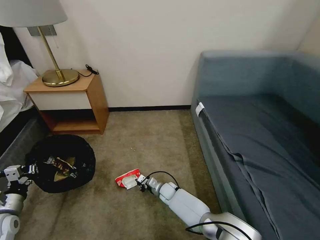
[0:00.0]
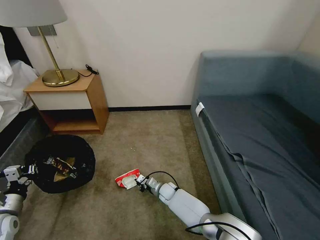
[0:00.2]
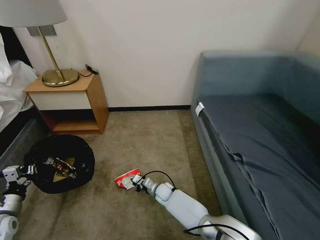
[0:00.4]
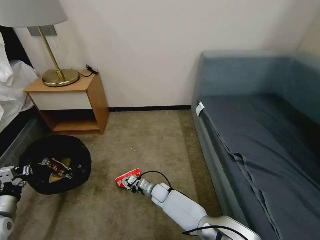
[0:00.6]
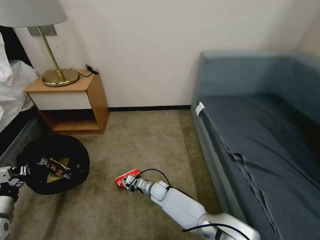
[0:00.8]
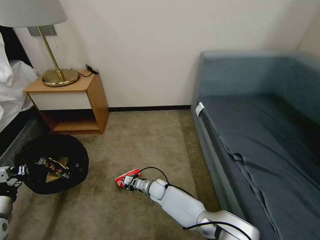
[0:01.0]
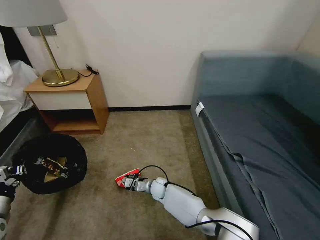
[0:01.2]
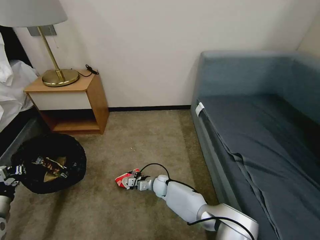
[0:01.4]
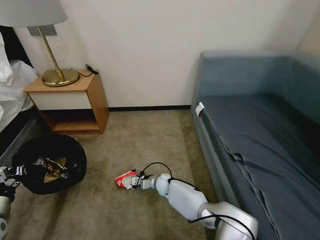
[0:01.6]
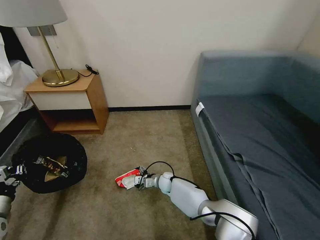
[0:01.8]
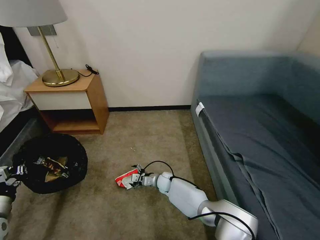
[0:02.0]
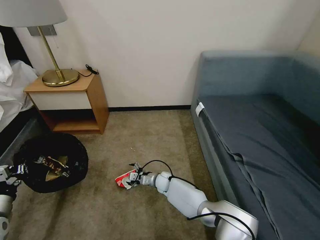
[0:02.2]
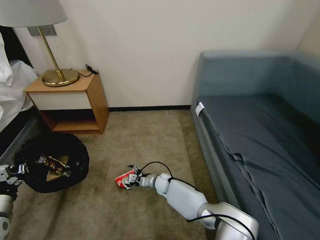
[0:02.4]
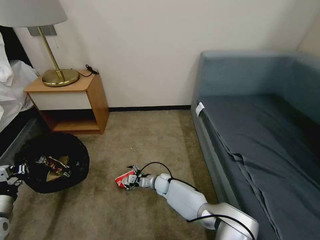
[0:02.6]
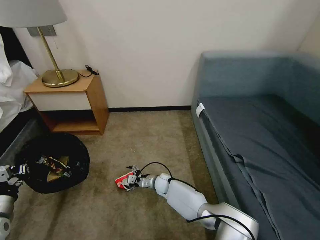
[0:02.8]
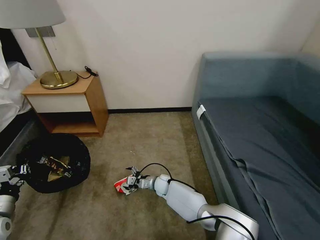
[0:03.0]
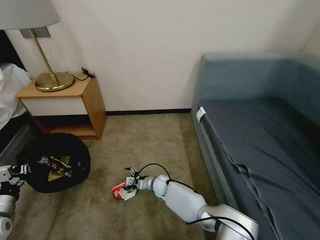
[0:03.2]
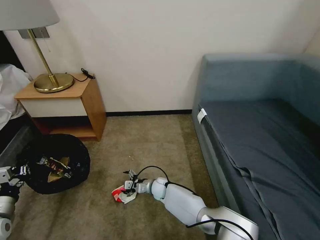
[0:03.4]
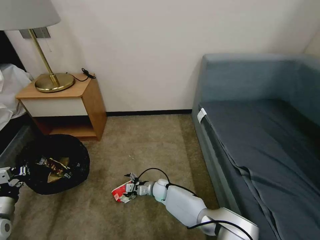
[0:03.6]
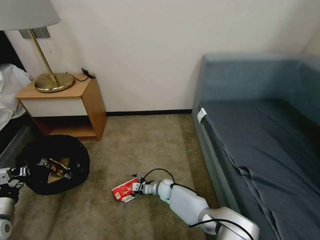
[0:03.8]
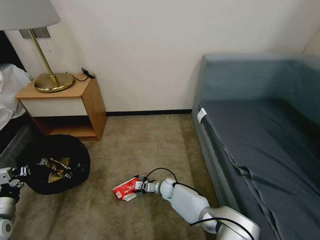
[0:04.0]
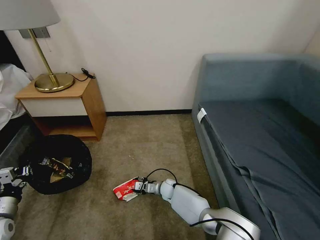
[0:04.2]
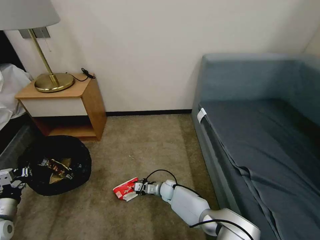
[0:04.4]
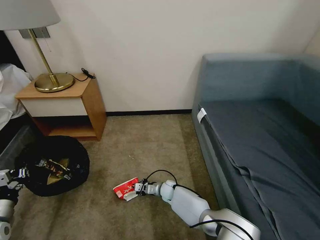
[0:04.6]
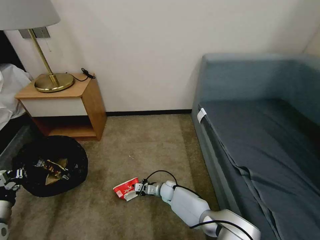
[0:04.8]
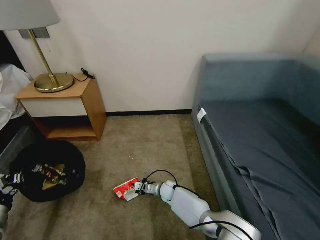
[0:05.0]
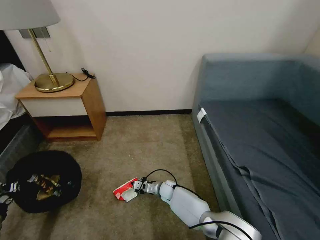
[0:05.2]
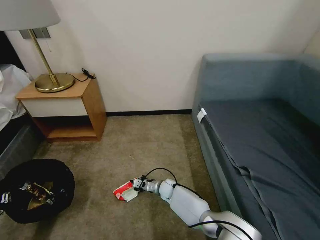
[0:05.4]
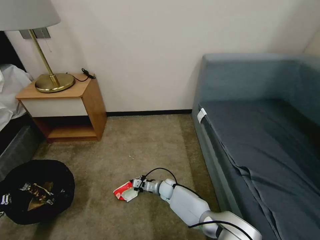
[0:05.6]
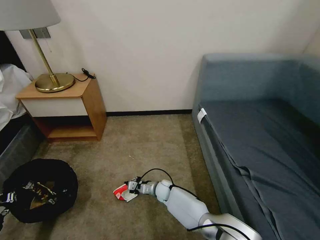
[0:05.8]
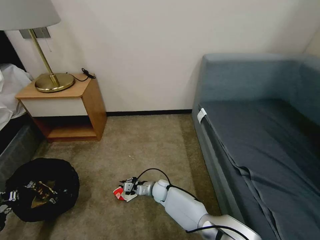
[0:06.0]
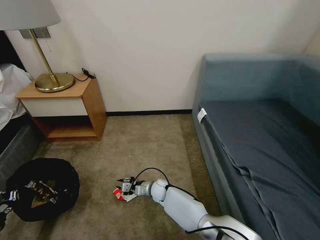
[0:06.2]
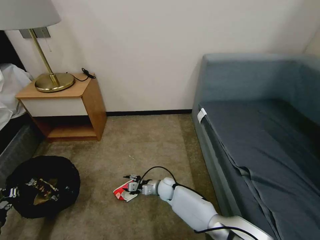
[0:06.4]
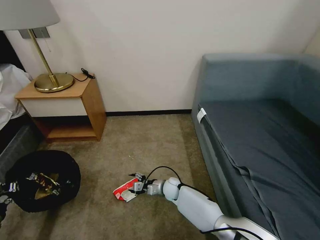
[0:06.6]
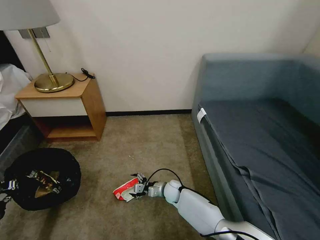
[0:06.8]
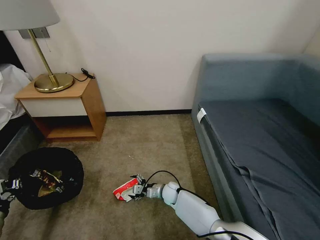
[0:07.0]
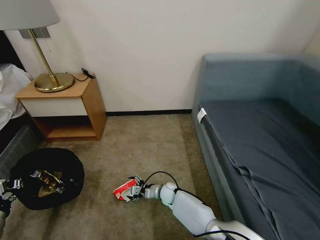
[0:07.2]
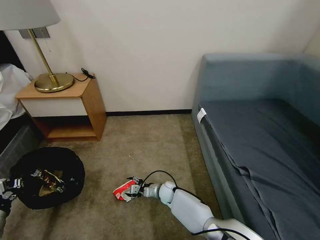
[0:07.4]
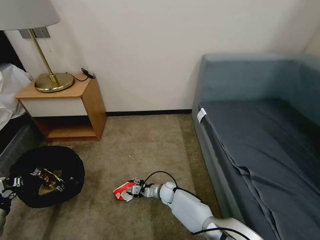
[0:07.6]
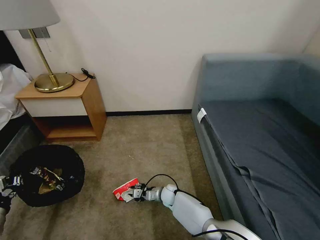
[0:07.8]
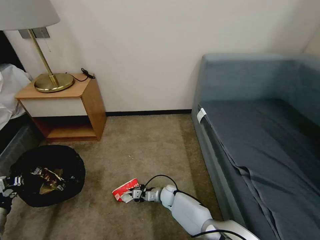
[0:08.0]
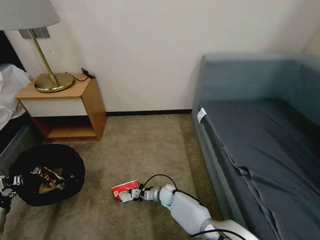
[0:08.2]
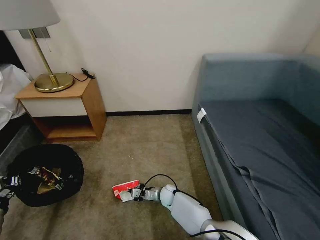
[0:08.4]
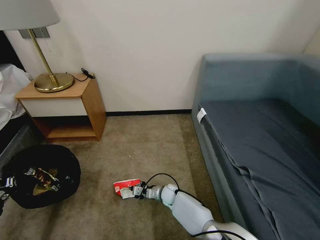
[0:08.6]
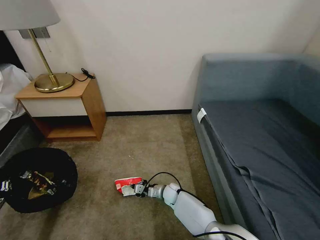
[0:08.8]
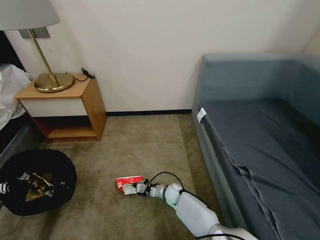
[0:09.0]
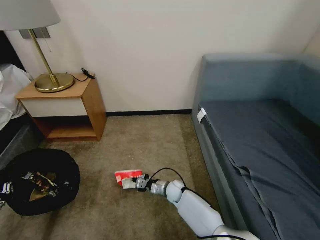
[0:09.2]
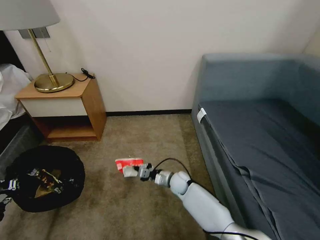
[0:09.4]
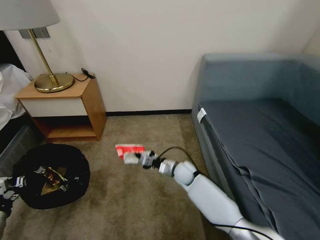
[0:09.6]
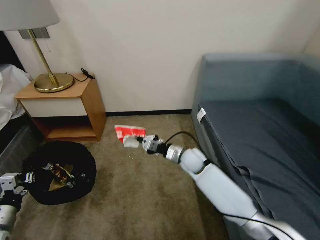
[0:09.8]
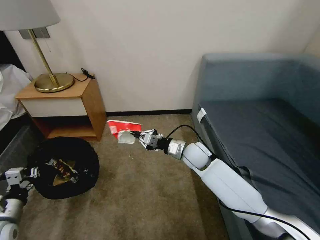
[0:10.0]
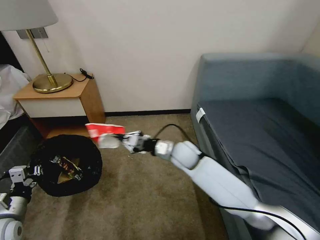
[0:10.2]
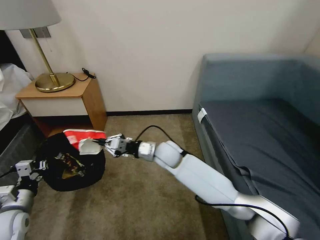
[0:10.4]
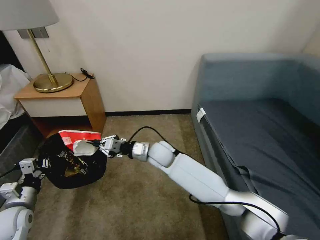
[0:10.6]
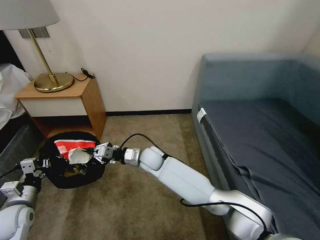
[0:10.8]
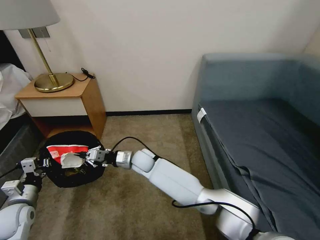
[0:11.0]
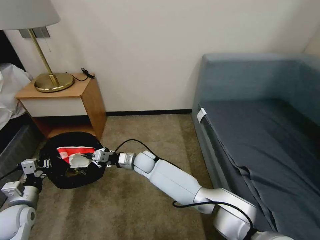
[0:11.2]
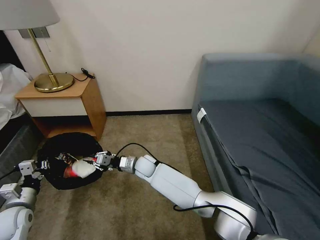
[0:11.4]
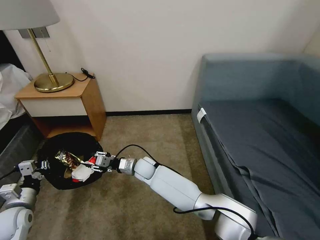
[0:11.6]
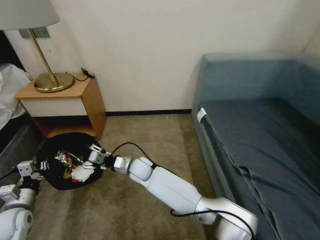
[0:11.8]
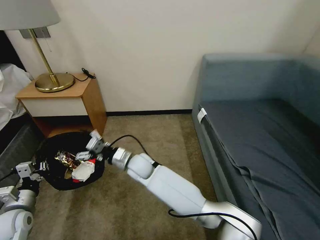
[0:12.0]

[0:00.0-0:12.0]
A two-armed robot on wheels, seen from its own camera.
Task of the whole recording: Pick up the trash bin, then pick up the garbage on the floor and place it into the trash bin.
0.0 to 1.6 s: The right gripper opens its fingers.
1.6 to 3.0 s: The grippers stay close to where they were, moving slightly.
3.0 to 4.4 s: The right gripper closes up.
4.4 to 6.0 s: The left gripper is displaced backward by approximately 5 cm.
6.0 to 7.6 s: The right gripper opens, while the left gripper shifts by approximately 5 cm.
7.6 to 9.0 s: The right gripper closes.
9.0 to 10.4 s: The right gripper is displaced upward by roughly 30 cm. Meanwhile the left gripper travels to the right and forward by some 10 cm.
10.4 to 12.0 s: The right gripper shifts roughly 10 cm to the left, and opens.

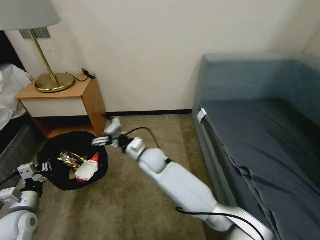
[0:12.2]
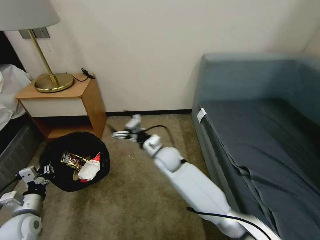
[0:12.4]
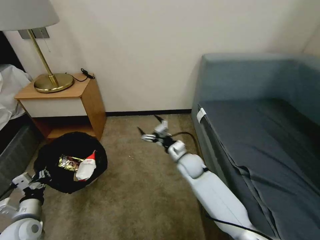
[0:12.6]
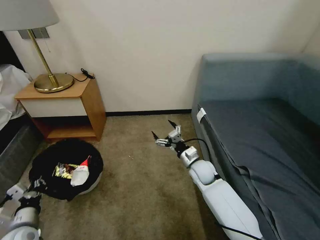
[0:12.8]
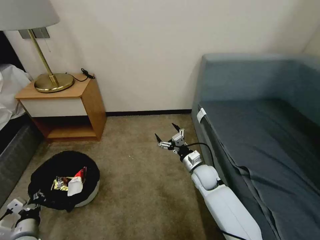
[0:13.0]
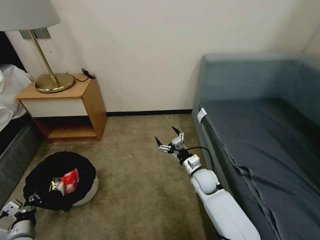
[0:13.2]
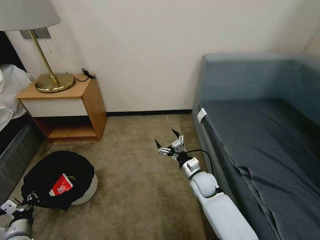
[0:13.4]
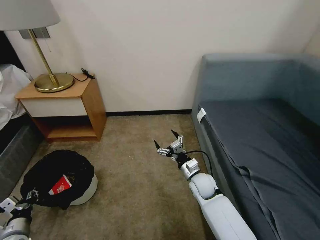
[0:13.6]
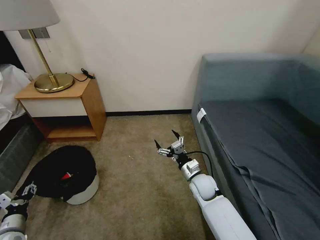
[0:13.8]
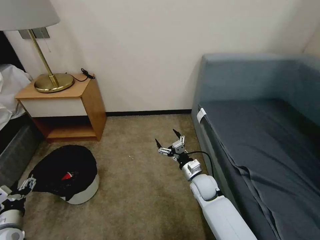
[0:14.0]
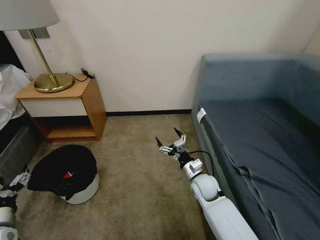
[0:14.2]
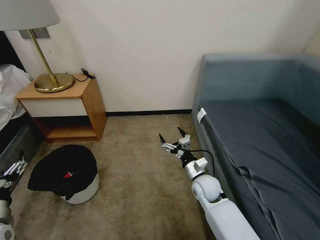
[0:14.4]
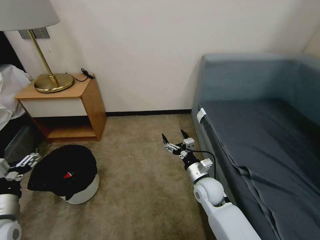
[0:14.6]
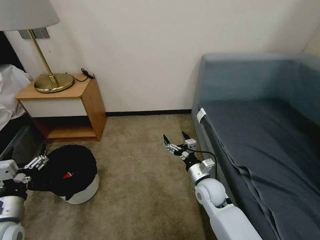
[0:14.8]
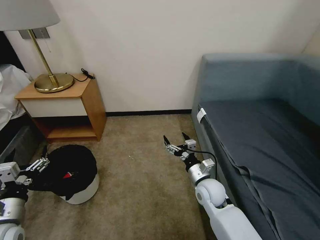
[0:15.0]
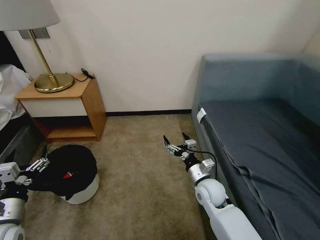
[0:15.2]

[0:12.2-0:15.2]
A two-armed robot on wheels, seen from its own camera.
Task of the whole recording: Pick up the trash bin, then pick up the garbage on the floor and place it into the trash bin.
12.2 to 13.8 s: The left gripper heads downward, covering about 5 cm, and opens. Meanwhile the right gripper heads to the right and downward, covering some 20 cm.
13.8 to 15.2 s: The left gripper travels upward and to the right by about 15 cm, and opens, while the right gripper changes place by about 5 cm.

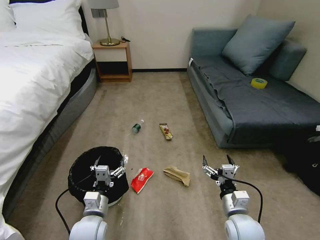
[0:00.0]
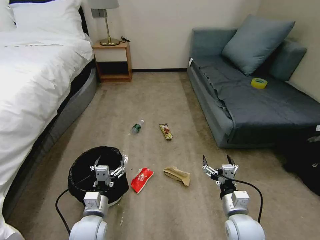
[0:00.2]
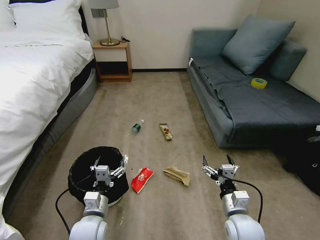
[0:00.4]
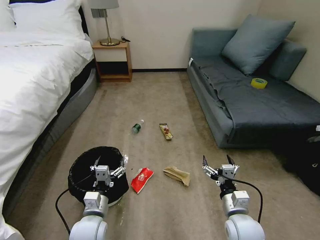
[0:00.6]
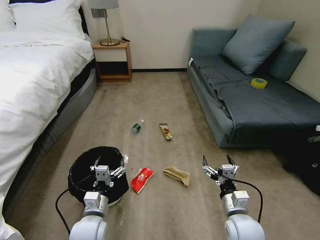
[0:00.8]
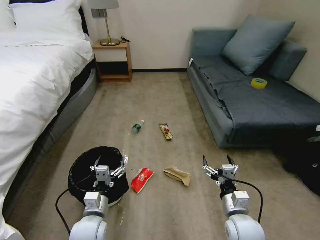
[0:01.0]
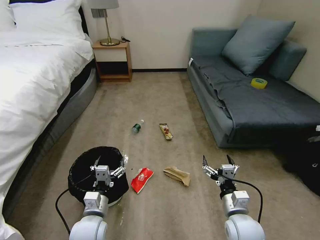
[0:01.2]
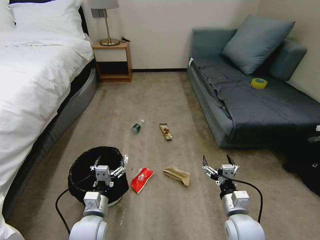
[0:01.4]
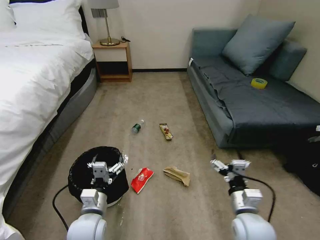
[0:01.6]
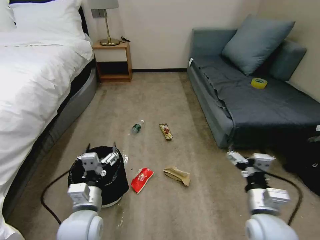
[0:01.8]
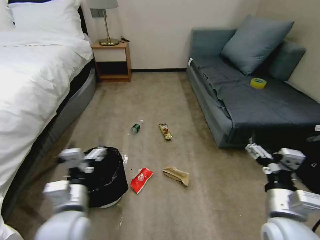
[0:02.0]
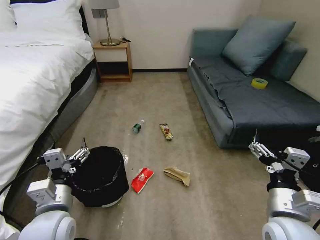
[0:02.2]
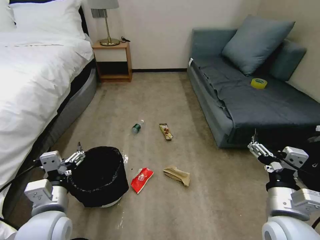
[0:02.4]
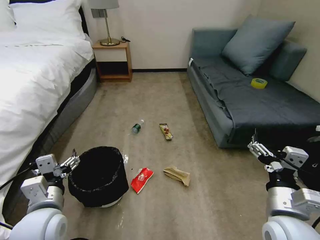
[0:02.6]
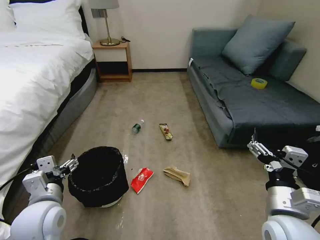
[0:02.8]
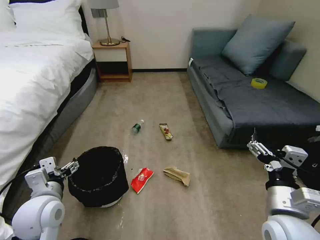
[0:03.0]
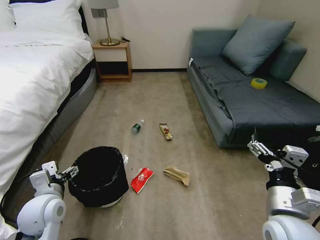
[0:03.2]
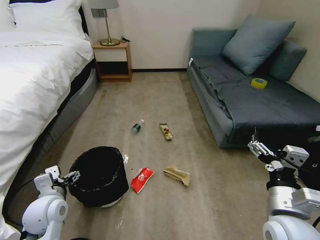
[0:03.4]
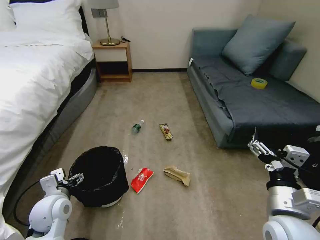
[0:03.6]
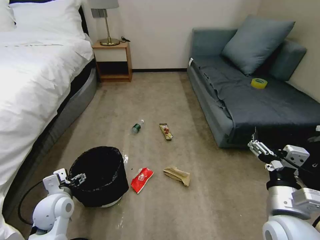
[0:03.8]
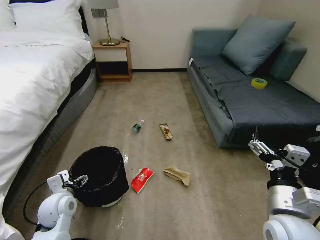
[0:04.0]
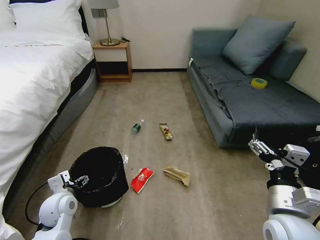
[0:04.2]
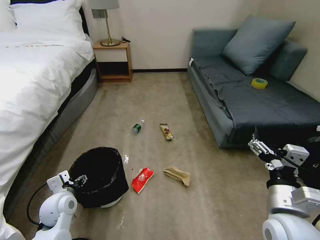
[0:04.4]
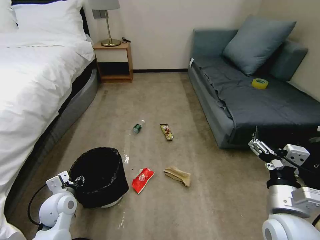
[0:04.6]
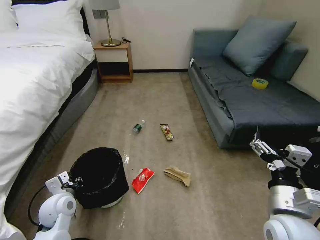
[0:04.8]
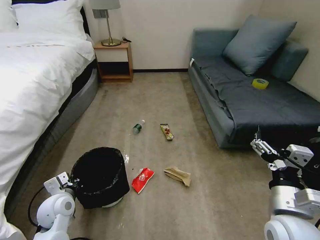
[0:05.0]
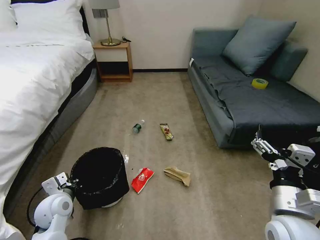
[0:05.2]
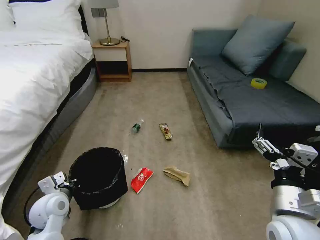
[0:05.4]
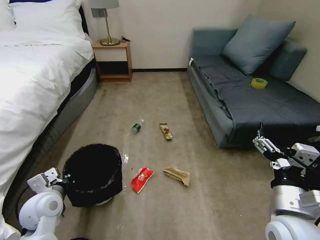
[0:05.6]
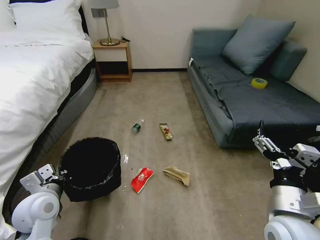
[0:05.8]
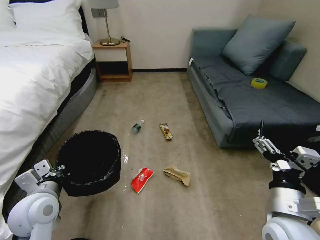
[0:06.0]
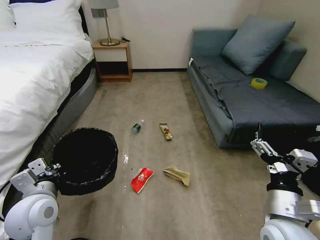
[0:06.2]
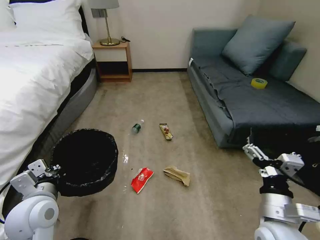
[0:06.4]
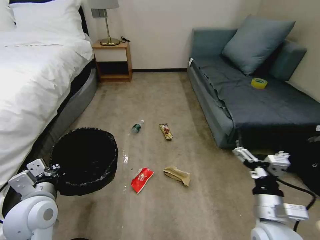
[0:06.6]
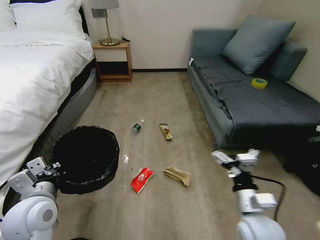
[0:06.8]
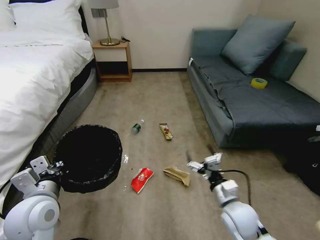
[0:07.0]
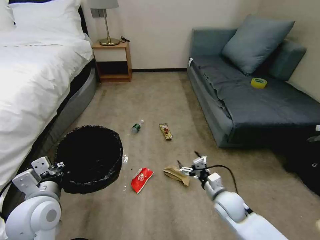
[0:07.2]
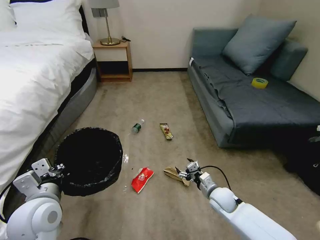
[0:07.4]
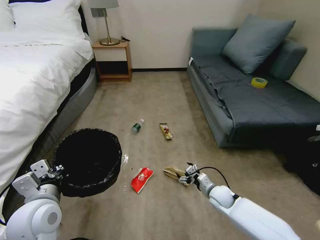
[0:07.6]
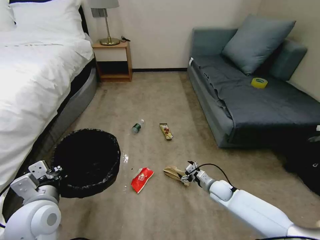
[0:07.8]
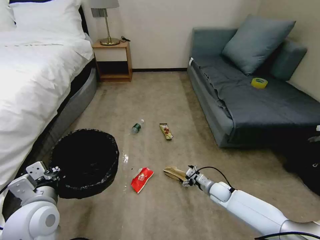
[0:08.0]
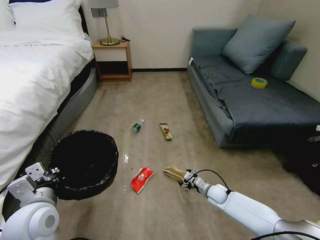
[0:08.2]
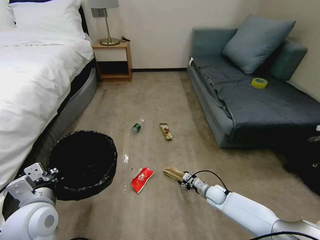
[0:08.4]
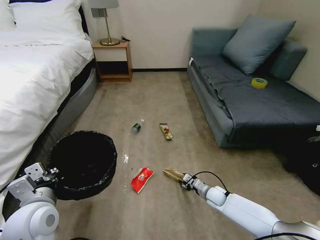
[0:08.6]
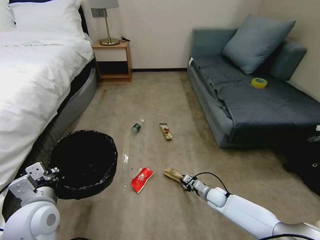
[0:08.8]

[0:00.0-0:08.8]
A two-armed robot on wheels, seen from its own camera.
Task of the whole recording: Pick up the trash bin, then pick up the garbage on the floor and place it into the trash bin.
1.4 to 3.0 s: The right gripper heads upward, covering approximately 15 cm. The left gripper moves upward and to the left, some 15 cm.
3.0 to 4.4 s: The left gripper travels downward by approximately 10 cm.
4.4 to 5.8 s: The left gripper is displaced upward by roughly 10 cm, and closes.
5.8 to 7.4 s: The left gripper shifts by approximately 5 cm; the right gripper travels downward and forward by about 30 cm.
7.4 to 8.8 s: The right gripper is displaced downward by about 10 cm, and closes up.
